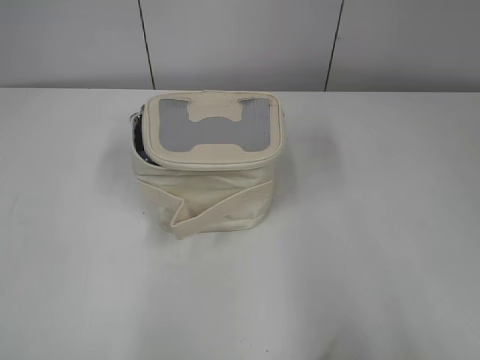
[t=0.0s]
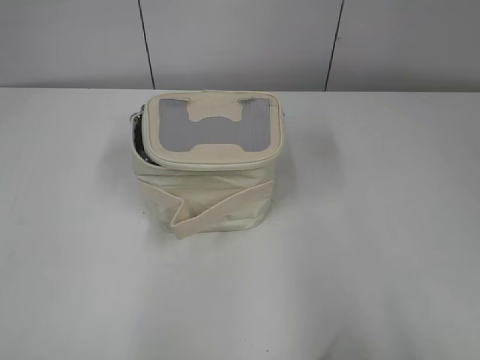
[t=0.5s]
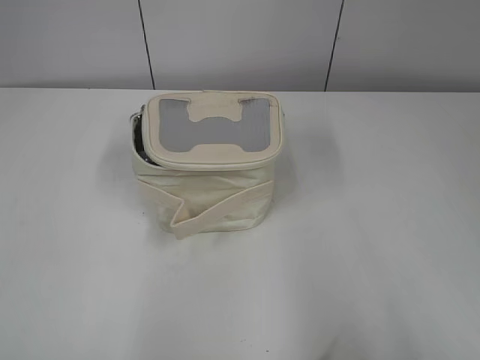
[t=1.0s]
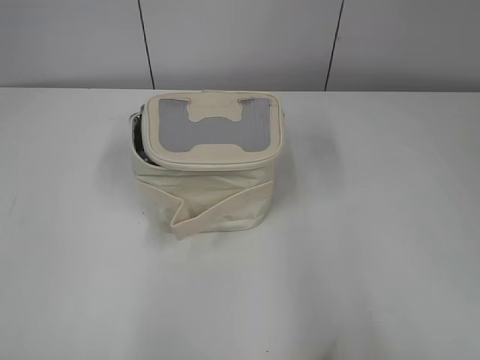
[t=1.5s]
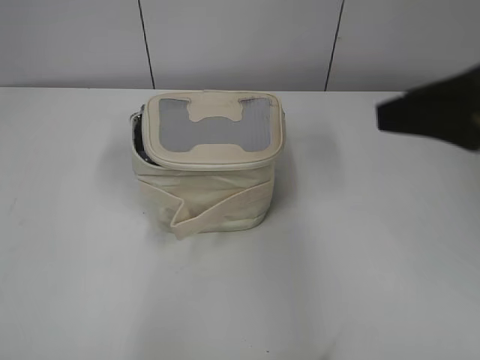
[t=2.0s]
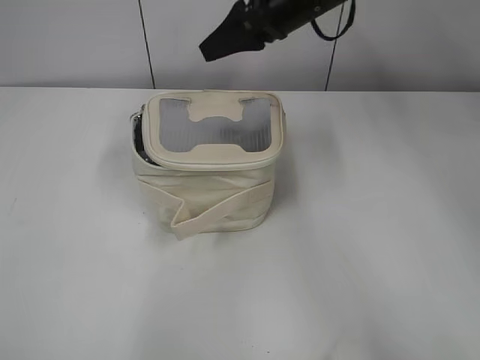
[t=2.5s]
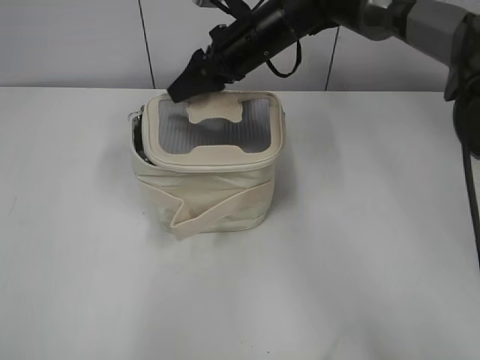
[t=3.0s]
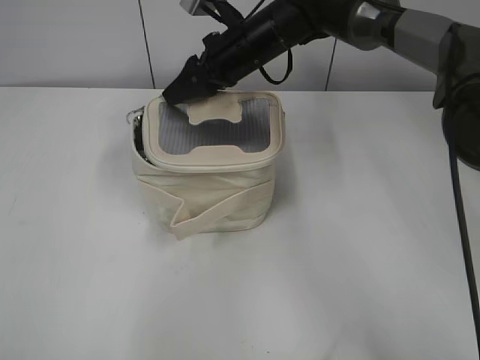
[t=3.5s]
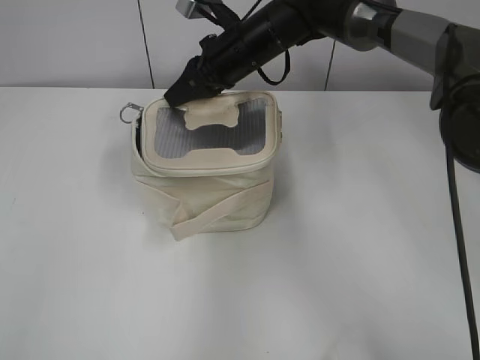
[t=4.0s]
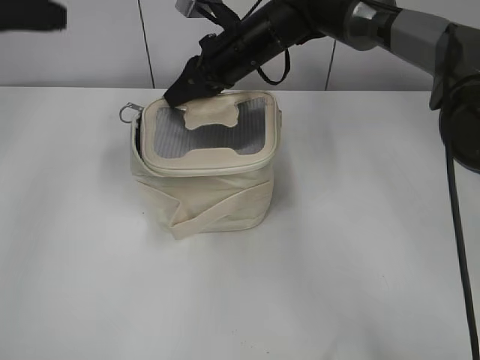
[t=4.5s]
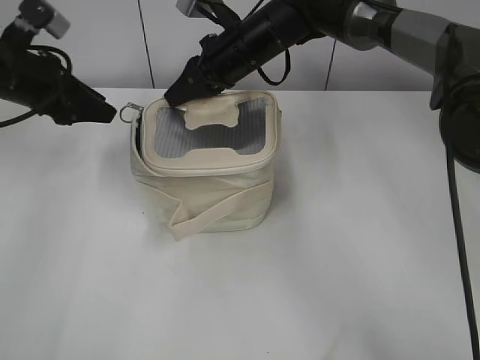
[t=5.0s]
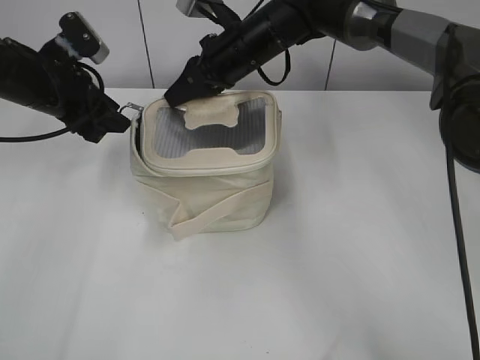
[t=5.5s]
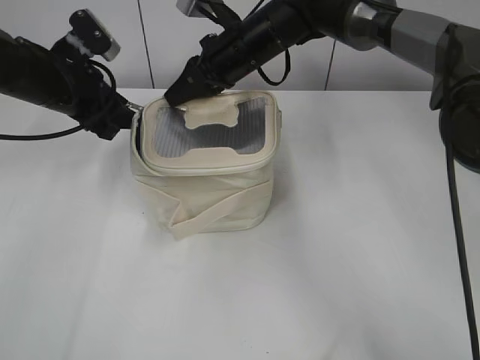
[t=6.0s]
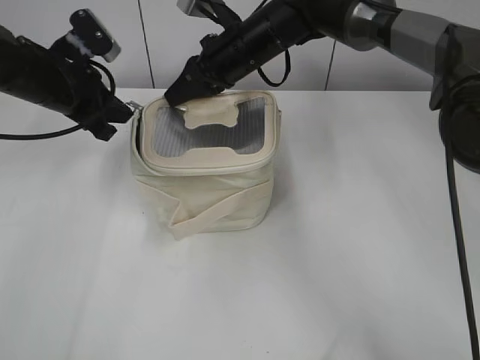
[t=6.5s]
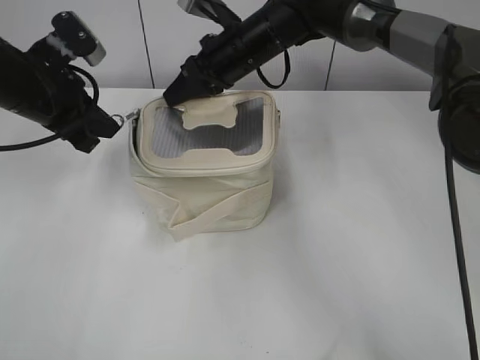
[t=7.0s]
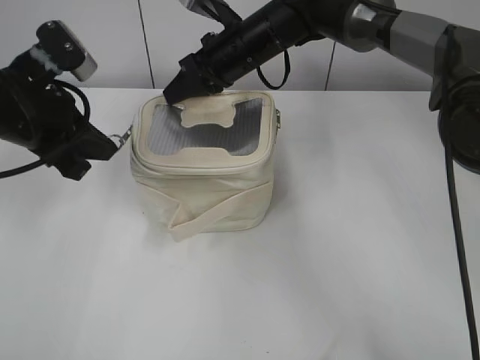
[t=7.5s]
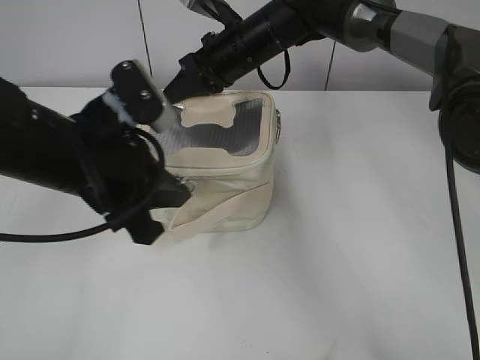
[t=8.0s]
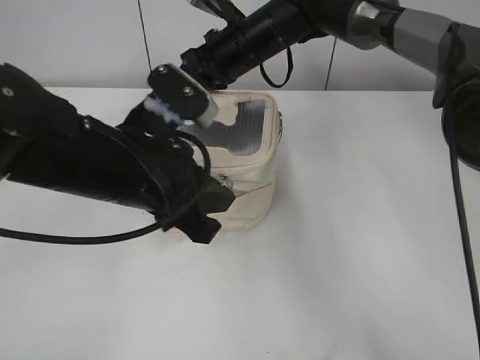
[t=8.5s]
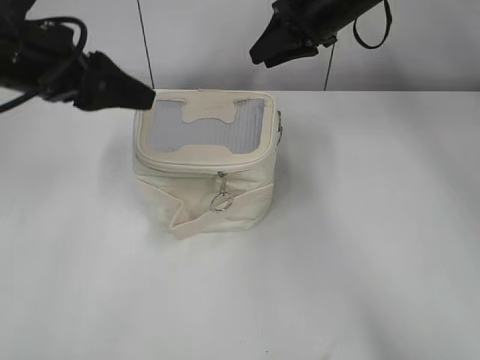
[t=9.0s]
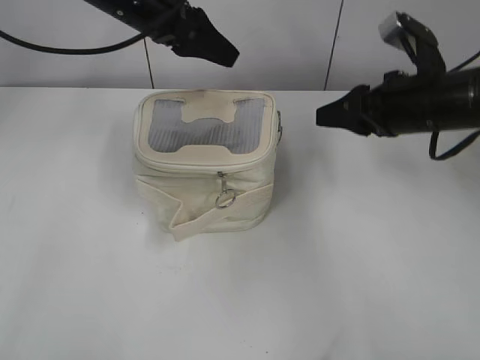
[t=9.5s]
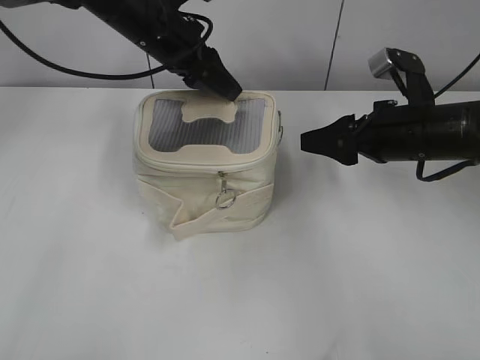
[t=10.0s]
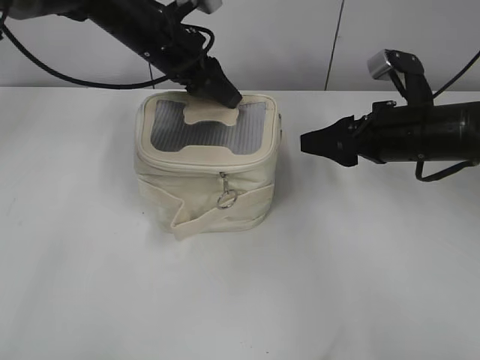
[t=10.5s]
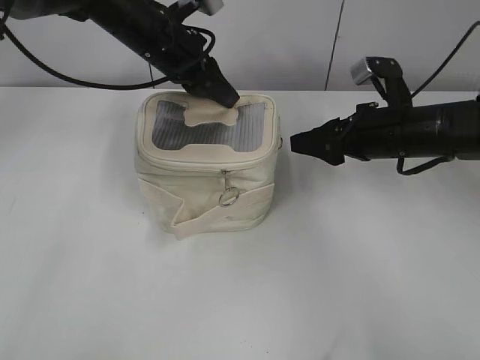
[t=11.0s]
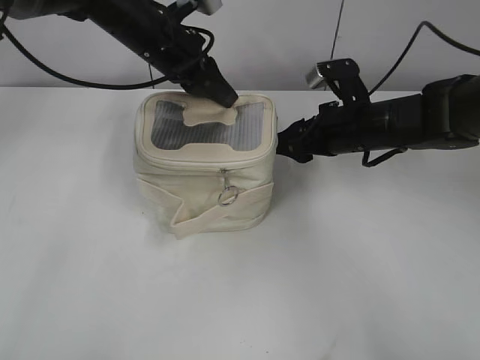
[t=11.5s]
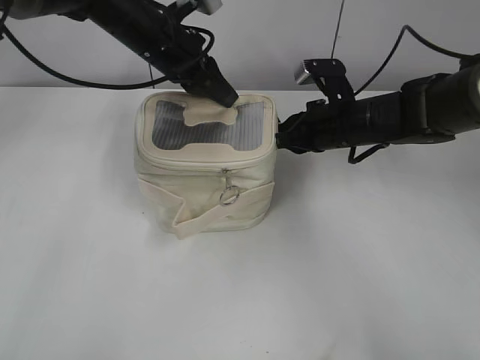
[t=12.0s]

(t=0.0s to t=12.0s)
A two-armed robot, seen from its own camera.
Step, t=0.0s - t=8.5s: Hold the bag with your right hand.
t=2.0s - t=4.0s: The right gripper is displaced forward, to the left and downward by roughly 35 cm, and closes its fingers. The left gripper moves forward, about 10 cm.
t=4.0s - t=6.0s: The left gripper is displaced forward and downward by approximately 30 cm.
t=6.0s - t=8.0s: The left gripper heads backward and to the right, covering roughly 15 cm, and closes its fingers.
t=8.0s - t=10.0s: The right gripper goes roughly 25 cm to the right and backward, and opens up, while the left gripper heads forward, covering about 20 cm, and opens.
t=10.0s - t=12.0s: The left gripper closes. The right gripper moves forward and to the left, approximately 10 cm, and closes its fingers.

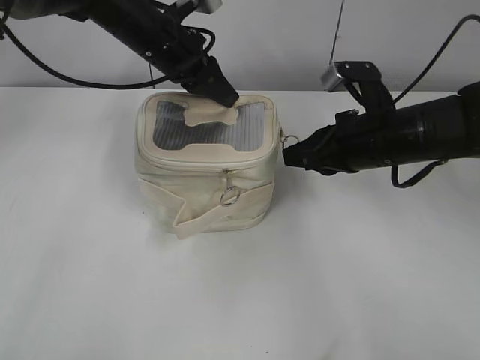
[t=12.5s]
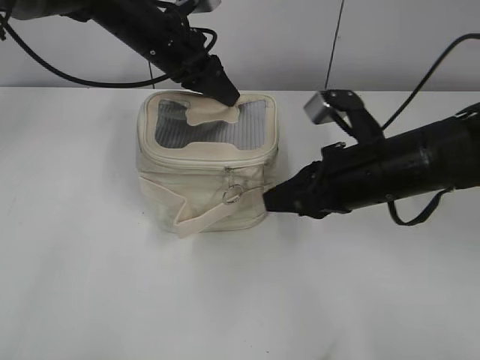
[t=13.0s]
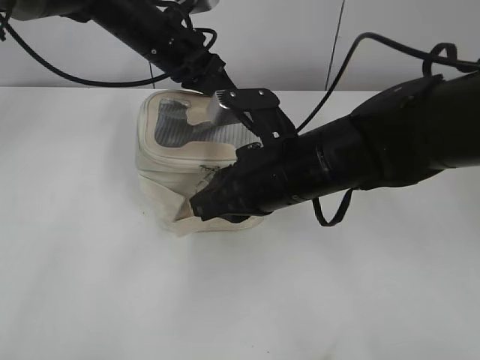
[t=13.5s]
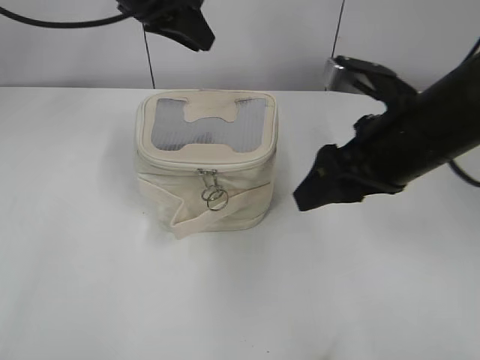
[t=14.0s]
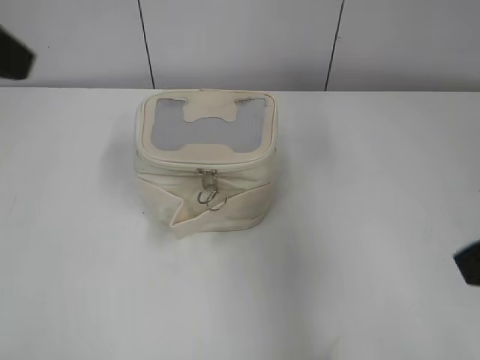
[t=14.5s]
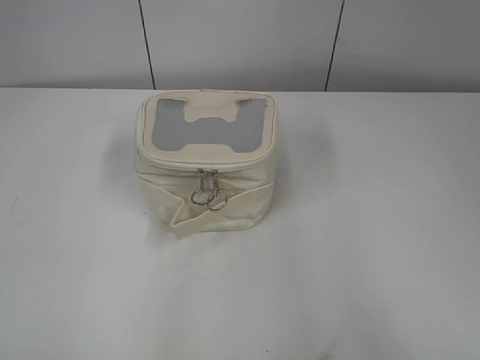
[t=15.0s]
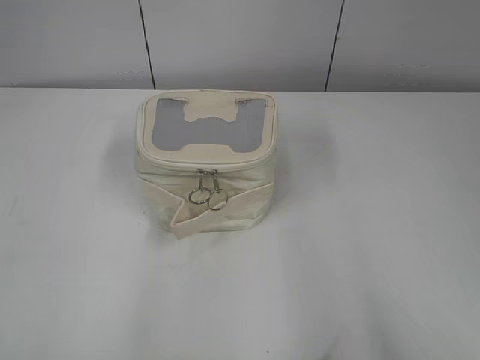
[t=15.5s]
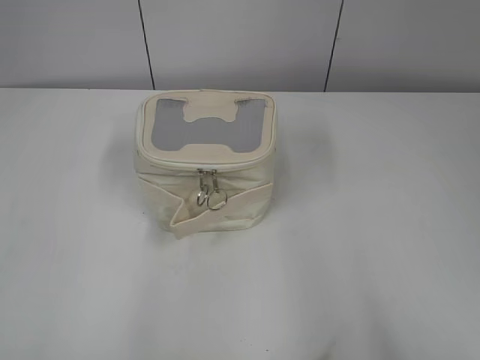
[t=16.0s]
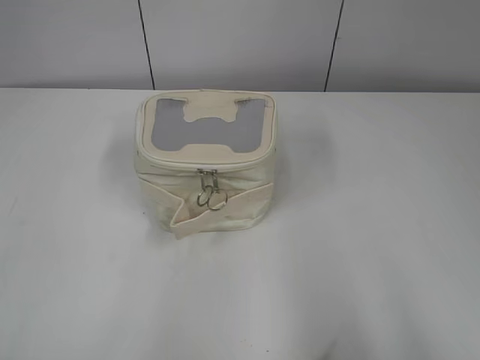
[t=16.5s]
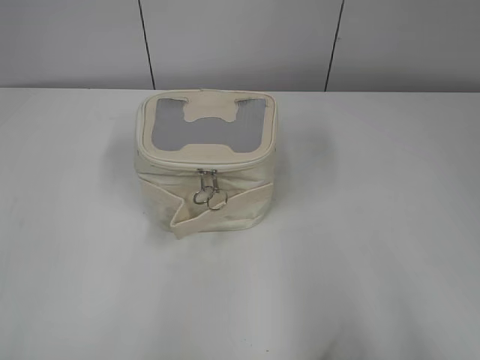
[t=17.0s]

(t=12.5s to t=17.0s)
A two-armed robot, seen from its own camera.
t=12.5s - t=14.5s: The left gripper goes roughly 30 cm backward, upward and to the left, while the right gripper is displaced backward and upward by roughly 20 cm, and opens its fingers.
t=14.5s - t=17.0s: The right gripper travels backward and to the right by about 20 cm; the left gripper travels backward and to the left by approximately 25 cm, and opens its fingers.

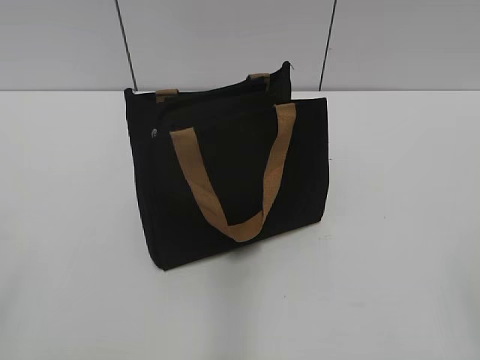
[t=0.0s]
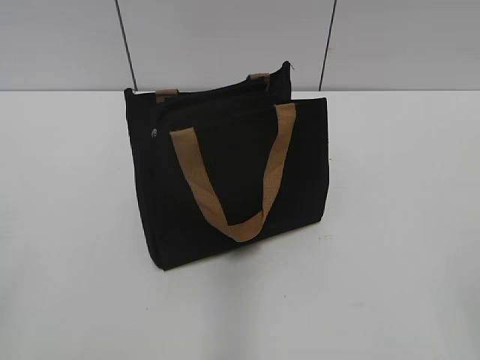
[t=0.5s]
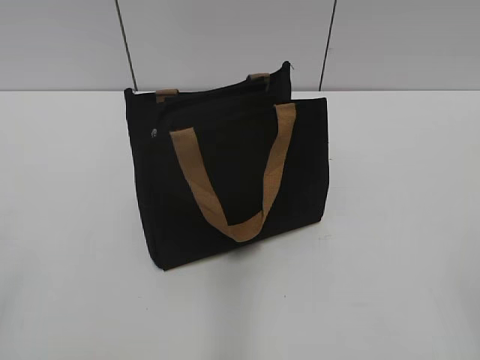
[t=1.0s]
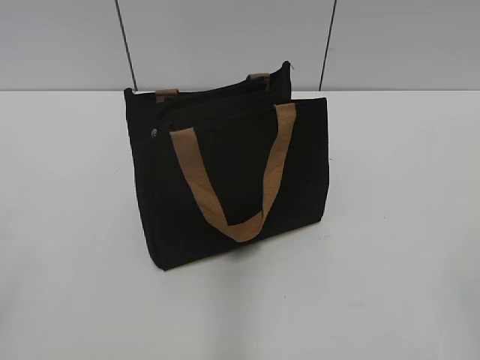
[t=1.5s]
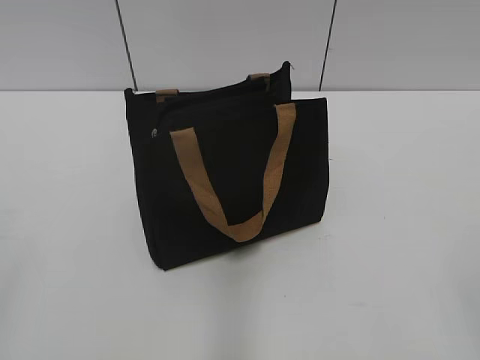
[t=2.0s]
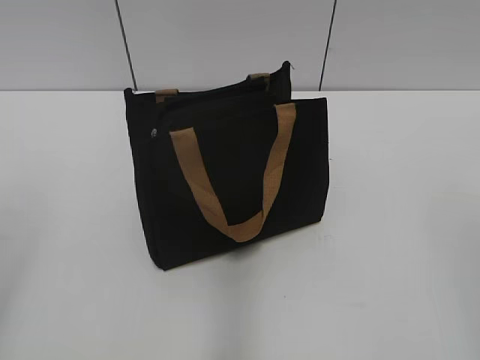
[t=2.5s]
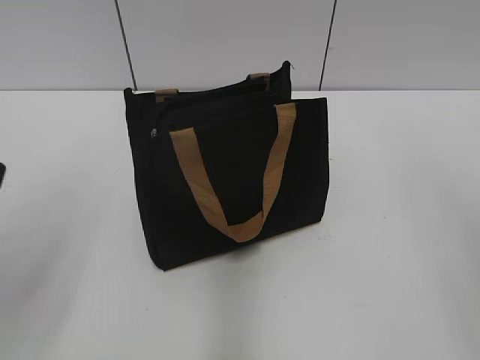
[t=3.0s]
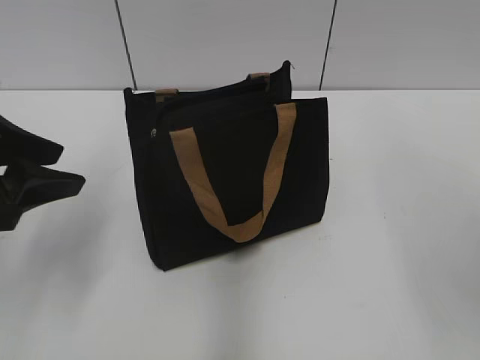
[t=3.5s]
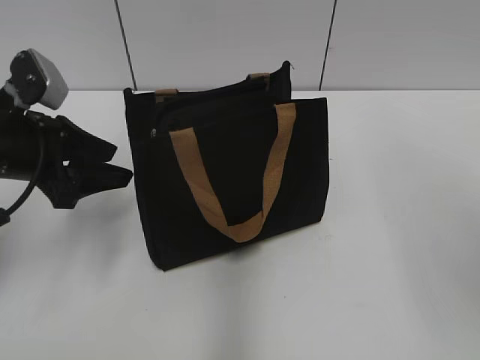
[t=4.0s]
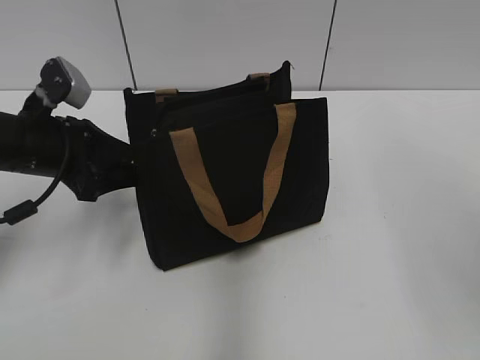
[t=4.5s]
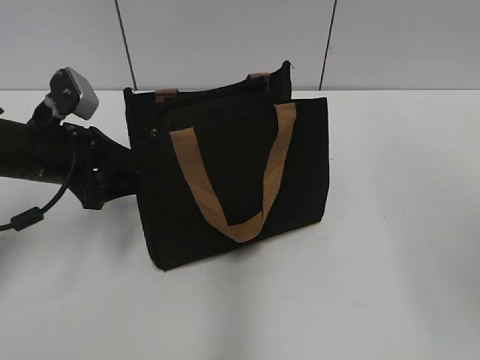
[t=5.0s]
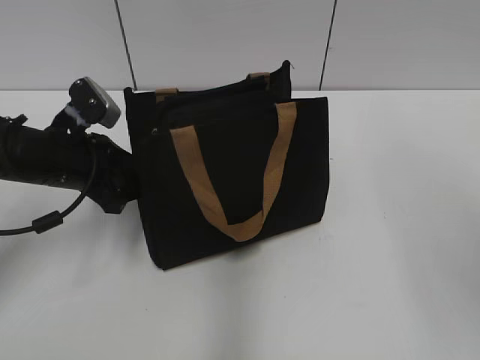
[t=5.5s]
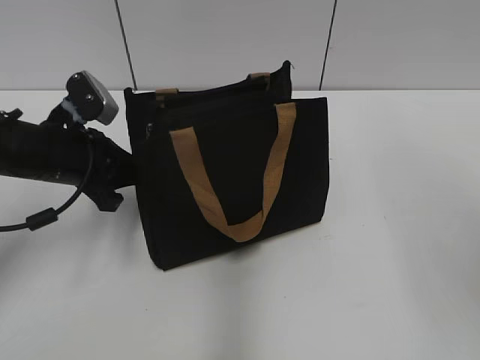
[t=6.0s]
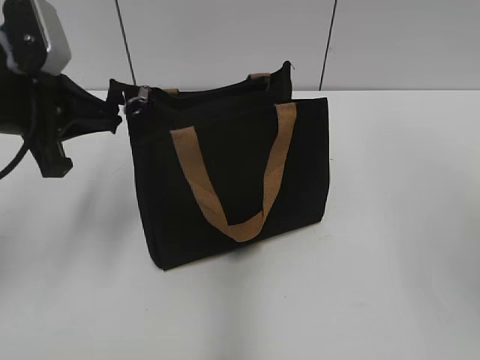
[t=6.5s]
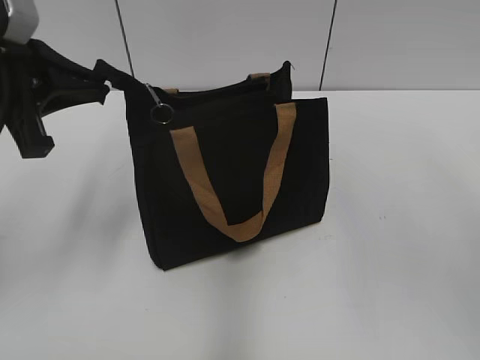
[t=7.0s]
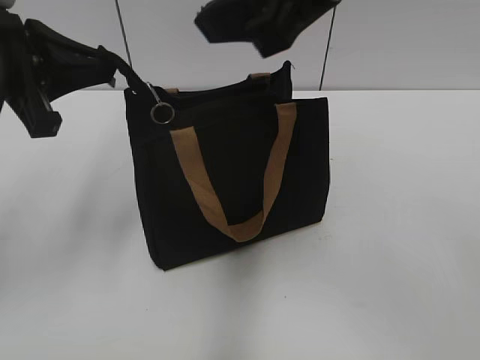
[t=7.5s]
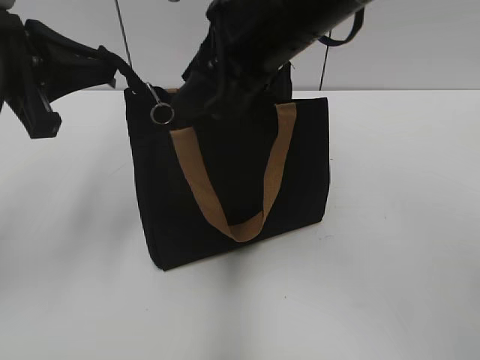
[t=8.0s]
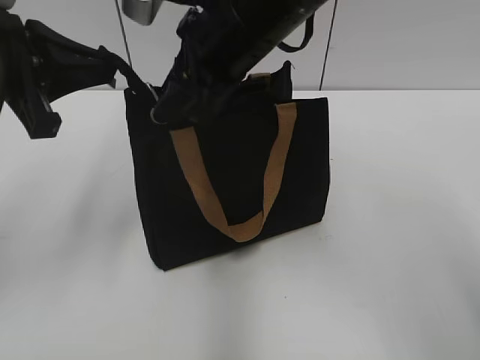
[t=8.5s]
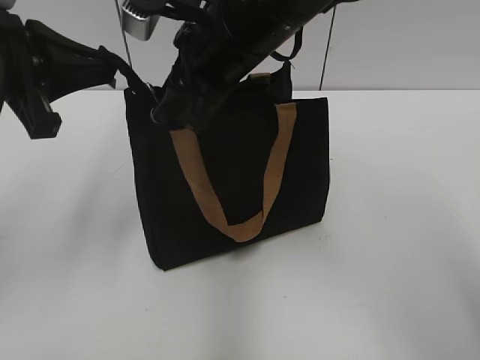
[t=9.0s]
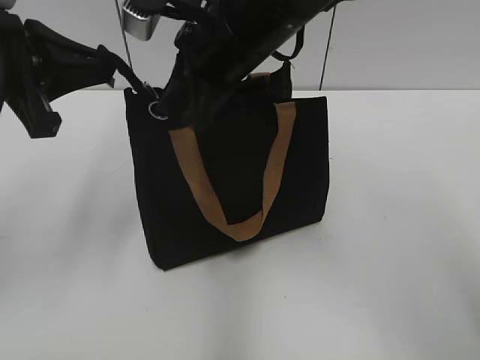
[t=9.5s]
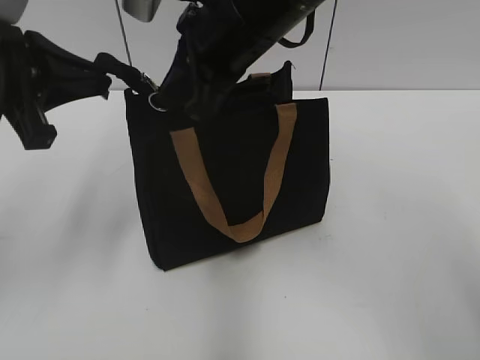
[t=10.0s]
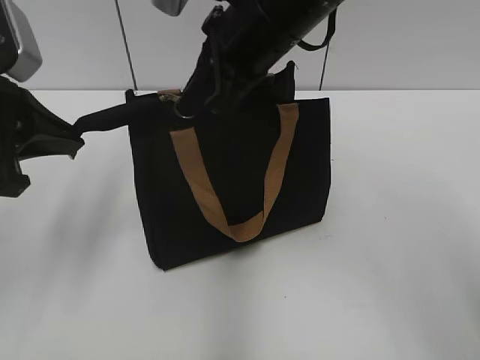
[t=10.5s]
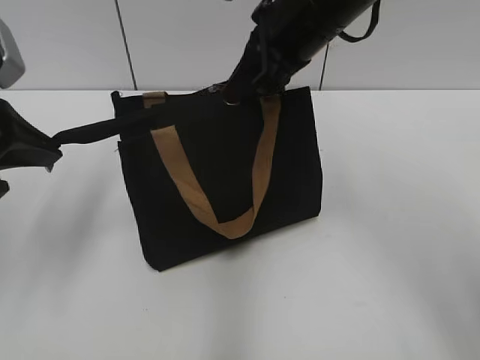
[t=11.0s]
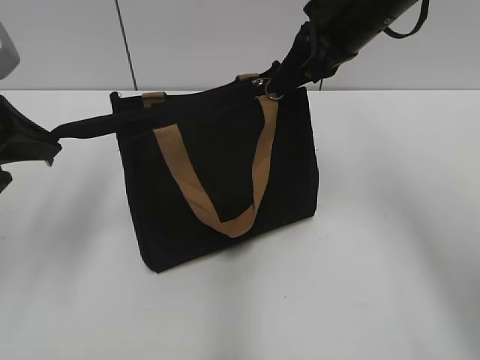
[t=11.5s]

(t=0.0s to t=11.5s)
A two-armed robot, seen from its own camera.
t=2.0s - t=4.0s: The left gripper goes roughly 30 cm forward.
t=4.0s - t=6.0s: The left gripper moves roughly 5 cm, and closes.
t=6.0s - t=7.5s: The left gripper is displaced upward by approximately 15 cm; the right gripper shifts about 20 cm to the left and forward.
t=7.5s - t=9.5s: The right gripper shifts some 15 cm downward, forward and to the left, and closes up.
t=9.5s - t=11.5s: The left gripper moves about 5 cm, while the right gripper is displaced to the right by some 10 cm.
